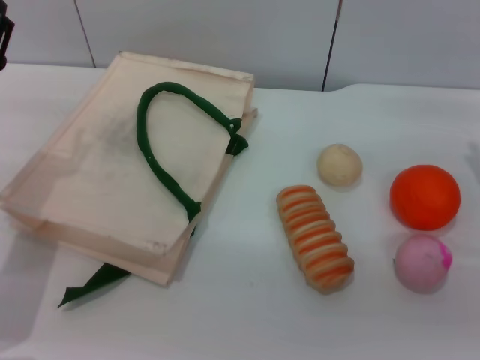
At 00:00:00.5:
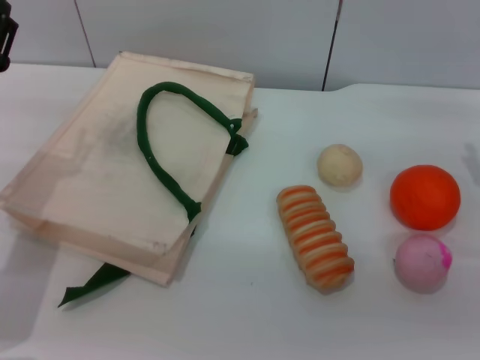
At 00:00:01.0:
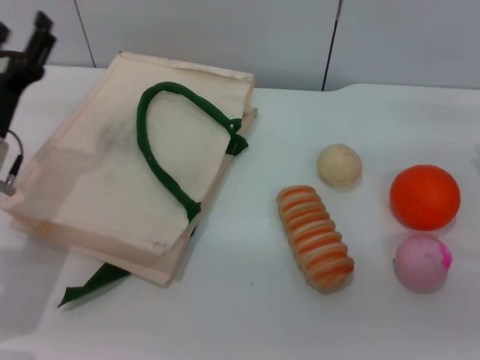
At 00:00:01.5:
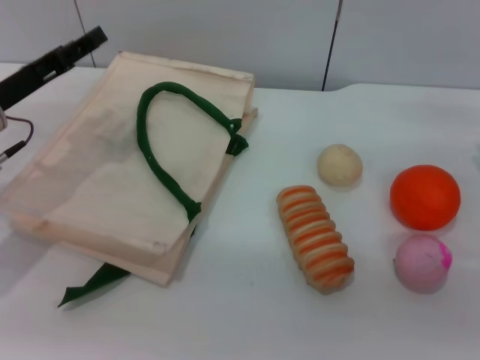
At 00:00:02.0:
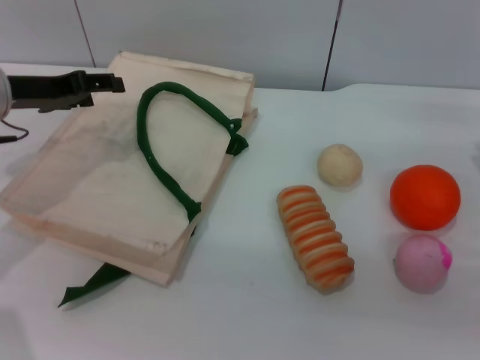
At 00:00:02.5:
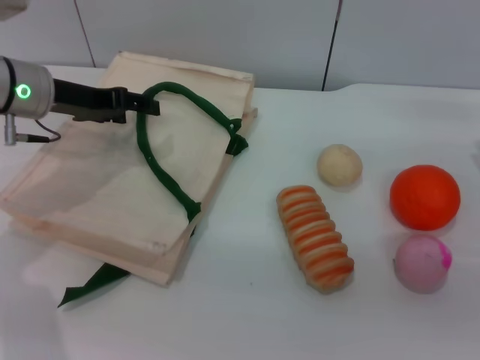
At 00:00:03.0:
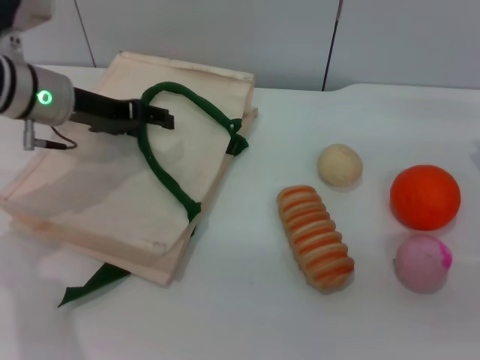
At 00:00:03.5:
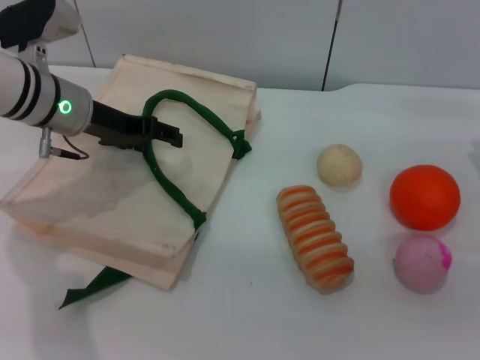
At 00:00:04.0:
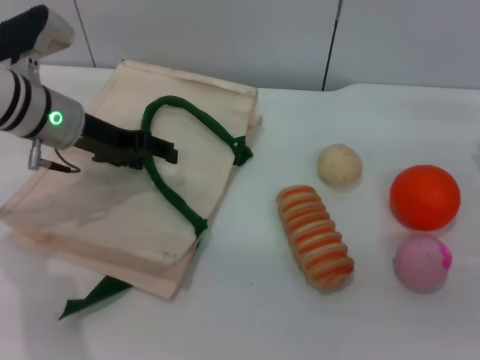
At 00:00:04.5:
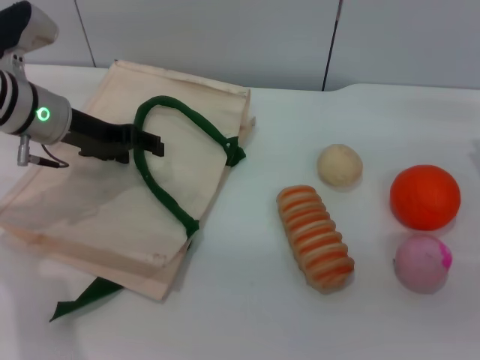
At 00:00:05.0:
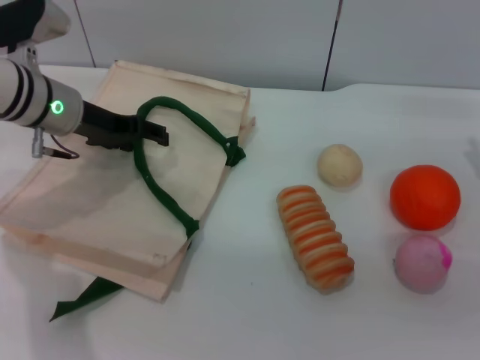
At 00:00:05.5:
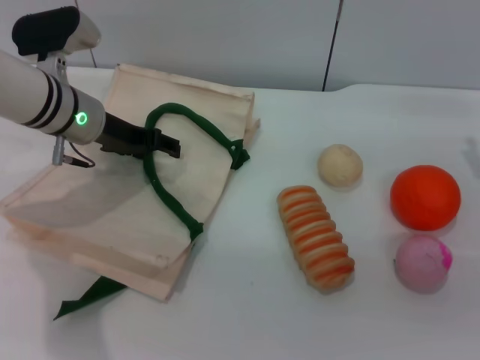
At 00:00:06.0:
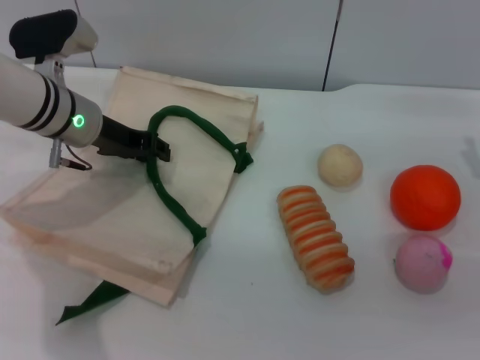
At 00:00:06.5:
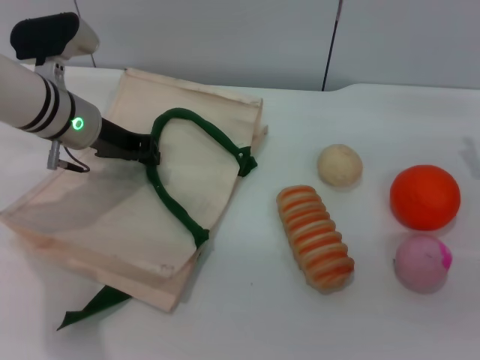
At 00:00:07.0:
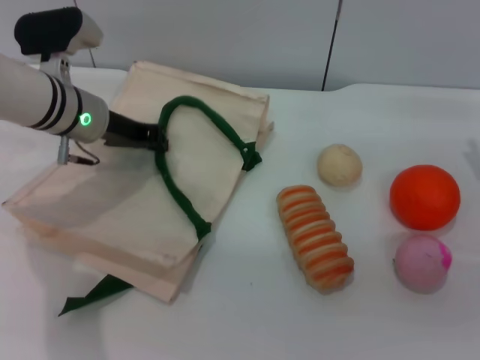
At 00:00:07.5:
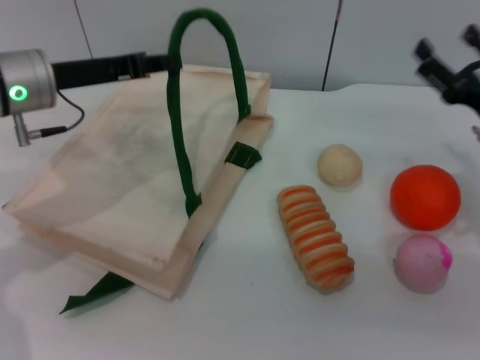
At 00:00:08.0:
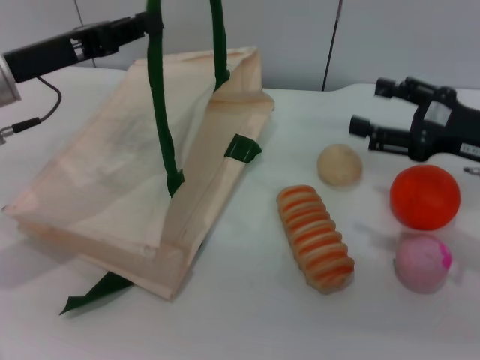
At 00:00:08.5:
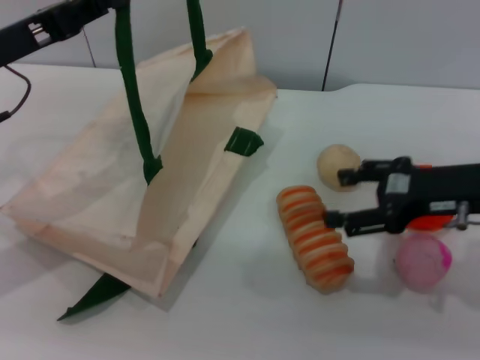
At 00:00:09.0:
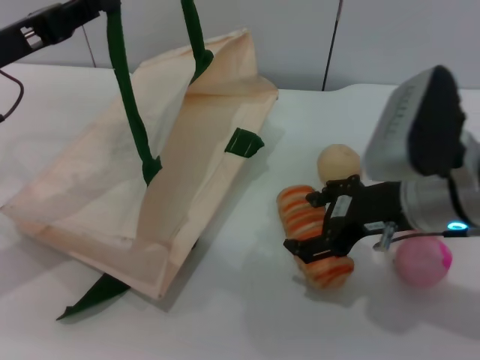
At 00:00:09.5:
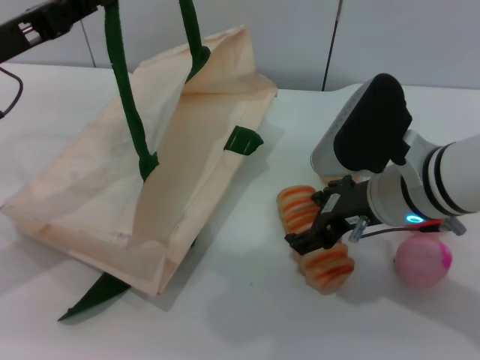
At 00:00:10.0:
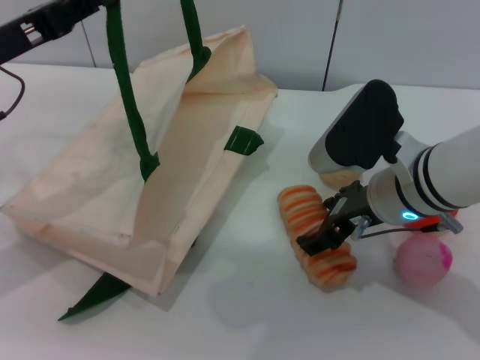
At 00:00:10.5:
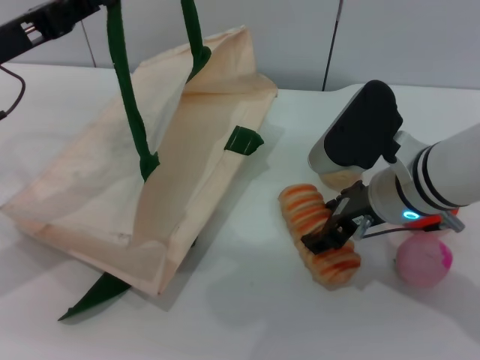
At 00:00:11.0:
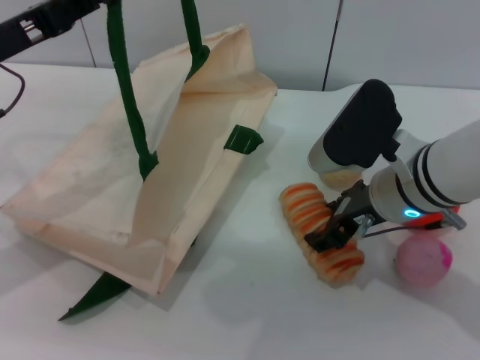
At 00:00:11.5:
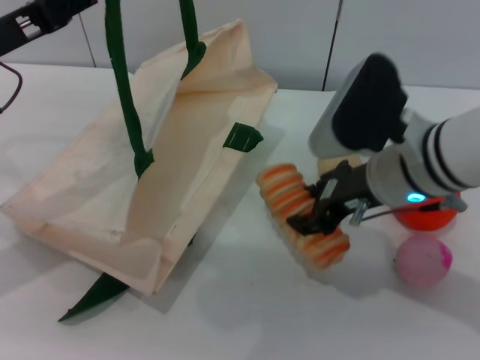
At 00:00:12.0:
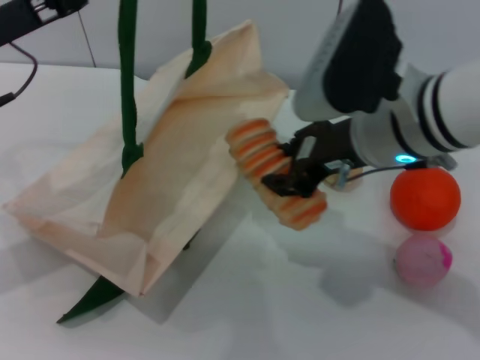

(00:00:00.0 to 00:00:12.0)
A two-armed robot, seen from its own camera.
Task of the whole recording: pick up the bread and egg yolk pastry from the table and place it in the white handbag.
Step, 00:00:00.0 - 00:00:07.0: Lift the woven bag with the left gripper to open it.
Step, 00:00:07.5 - 00:00:11.5: Pick up the bread with the right gripper.
00:00:00.0 - 00:00:02.0: The left gripper travels forward and upward by some 10 cm.
00:00:02.0 - 00:00:04.0: The left gripper moves to the right, some 5 cm.
00:00:04.0 - 00:00:06.0: The grippers stay close to where they were, moving slightly.
00:00:06.0 - 00:00:08.0: The right gripper shifts by roughly 5 cm; the left gripper moves backward and upward, about 10 cm, and closes its fingers.
00:00:08.0 - 00:00:10.0: The right gripper goes roughly 15 cm to the left.
00:00:10.0 - 00:00:12.0: The right gripper heads upward, covering about 10 cm, and closes up.

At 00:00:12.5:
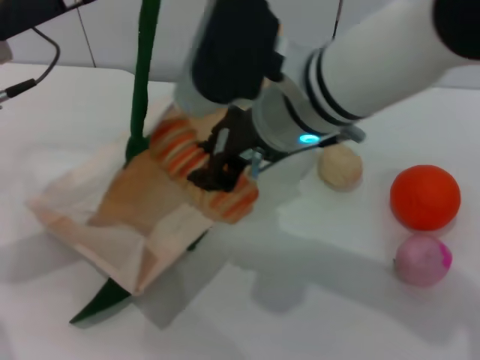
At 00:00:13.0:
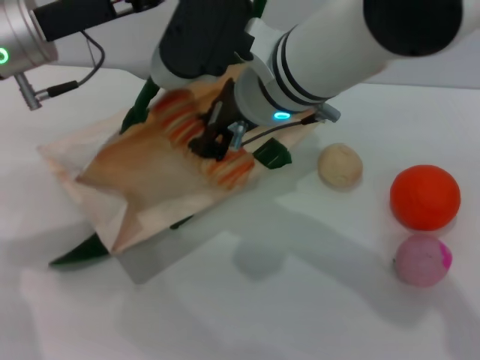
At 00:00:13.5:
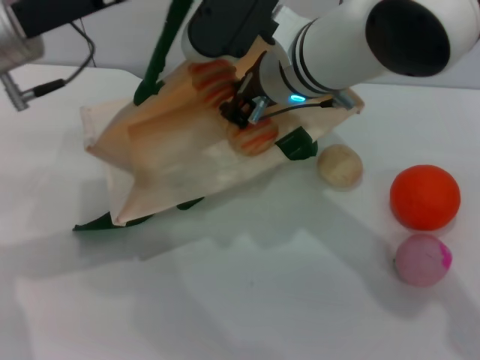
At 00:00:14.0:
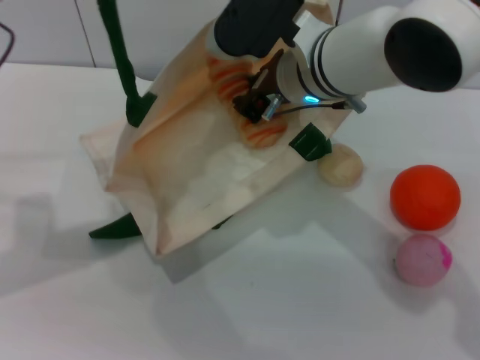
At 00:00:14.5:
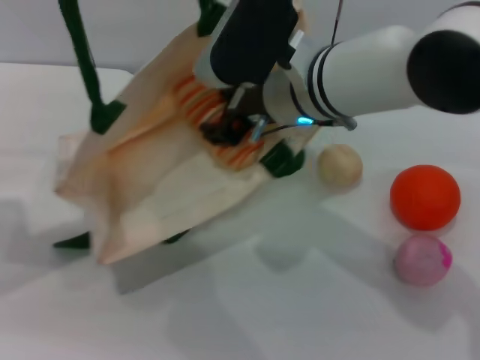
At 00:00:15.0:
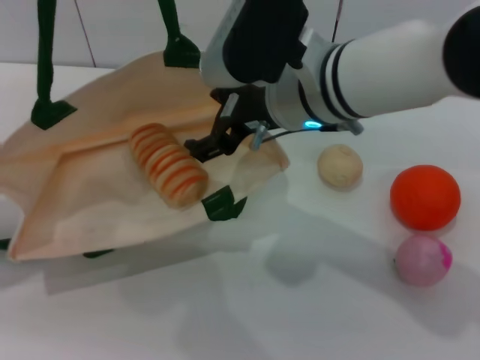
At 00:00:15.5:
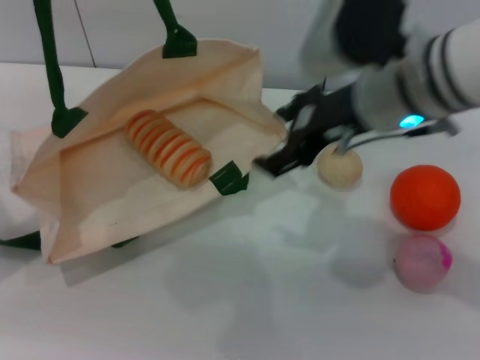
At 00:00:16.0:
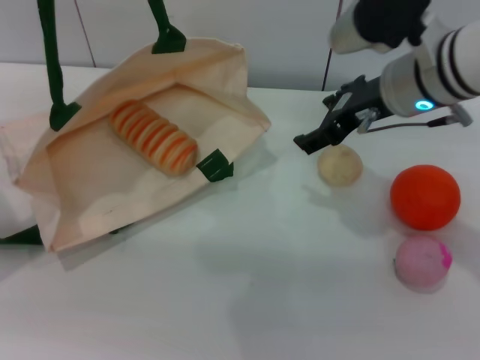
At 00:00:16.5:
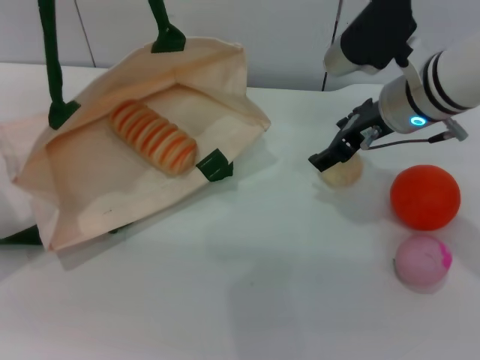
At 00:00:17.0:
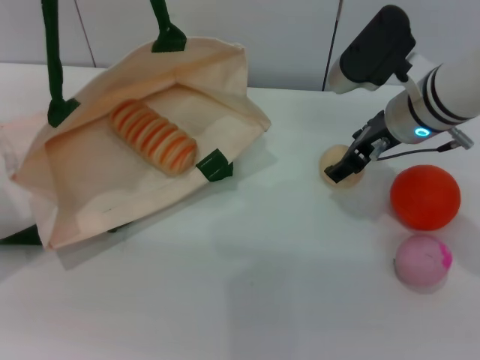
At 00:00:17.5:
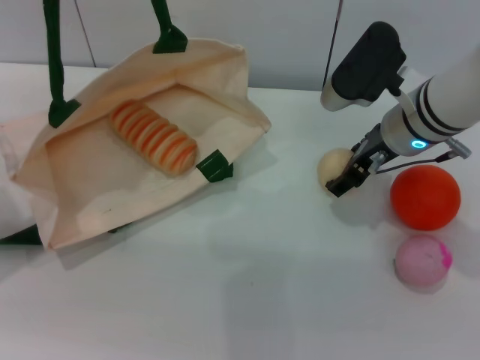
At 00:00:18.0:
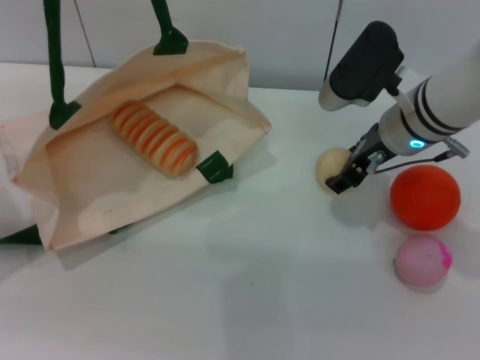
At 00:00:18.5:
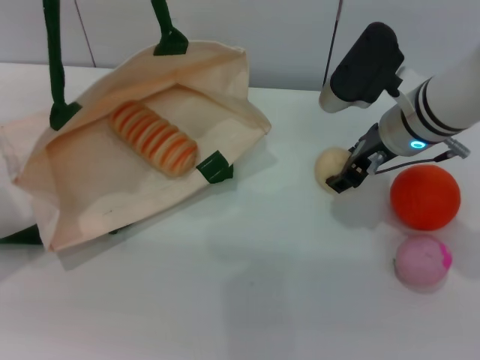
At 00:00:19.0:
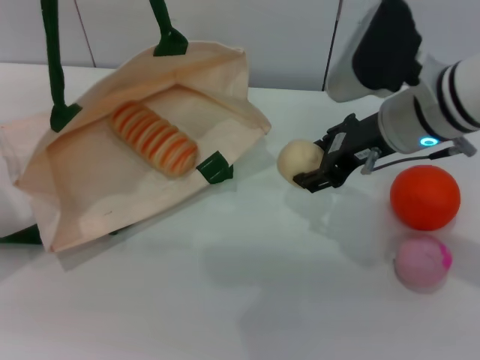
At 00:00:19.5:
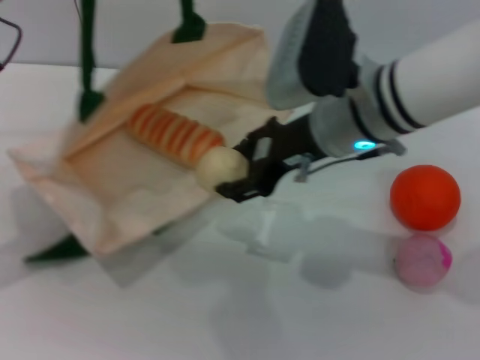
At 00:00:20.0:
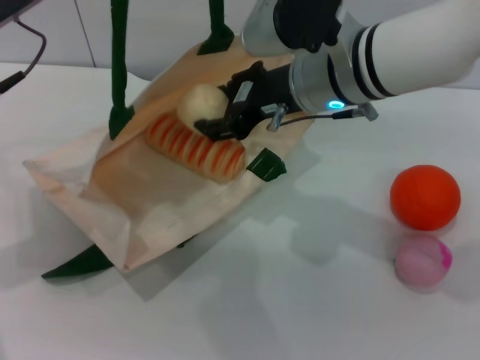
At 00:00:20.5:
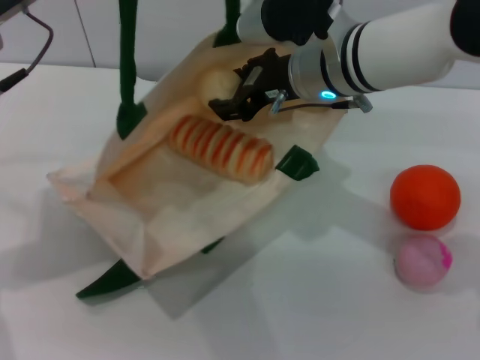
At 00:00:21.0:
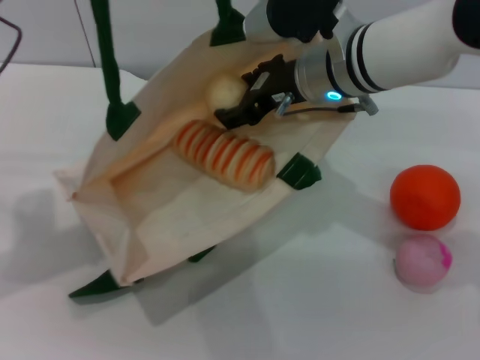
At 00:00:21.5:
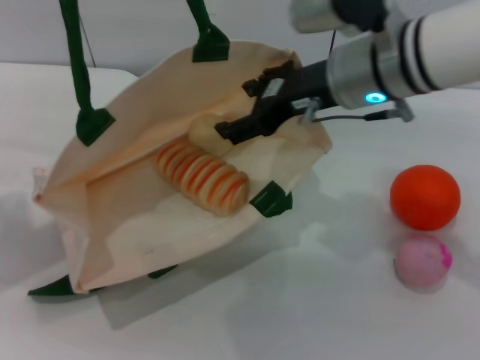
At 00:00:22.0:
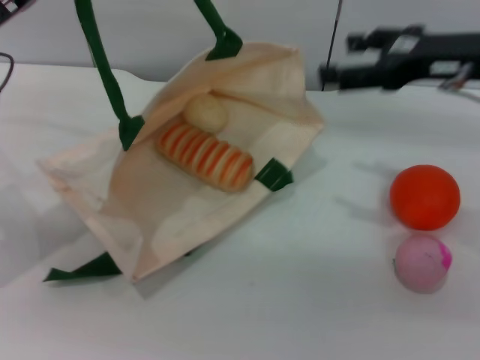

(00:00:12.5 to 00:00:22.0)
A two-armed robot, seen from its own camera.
Task of the whole recording: pick up the bread and egg yolk pastry from the table and place it in the white handbag.
Step, 00:00:12.5 - 00:00:15.5: Place the bread into the woven bag with the right gripper.
Step, 00:00:16.0 - 00:00:19.0: Pick up the egg yolk pastry with the right gripper.
Step, 00:00:19.5 - 00:00:21.5: Place the egg yolk pastry into the woven bag with the right gripper.
00:00:12.5 - 00:00:14.5: The left gripper moves approximately 5 cm, while the right gripper ends up roughly 5 cm from where it was.
00:00:14.5 - 00:00:16.5: The right gripper heads to the right, covering some 10 cm, and opens.
00:00:16.5 - 00:00:18.0: The grippers make only small movements.
00:00:18.0 - 00:00:20.0: The right gripper goes roughly 10 cm to the left and upward.
00:00:20.0 - 00:00:22.0: The right gripper goes some 15 cm to the right, and opens its fingers.

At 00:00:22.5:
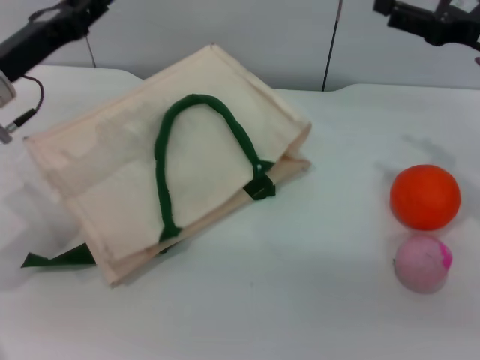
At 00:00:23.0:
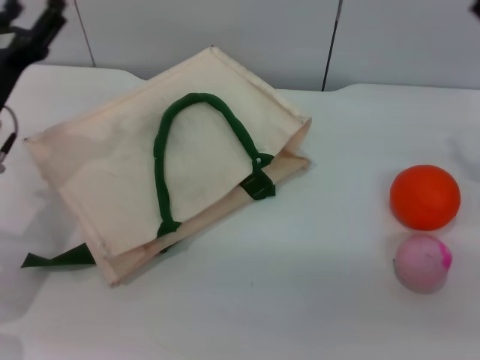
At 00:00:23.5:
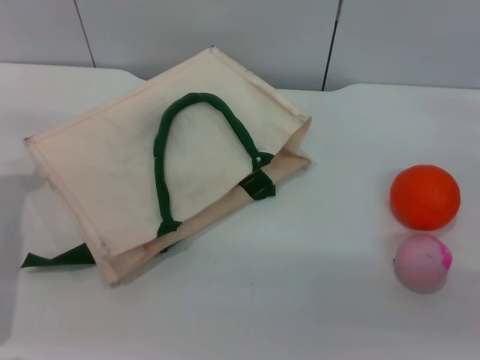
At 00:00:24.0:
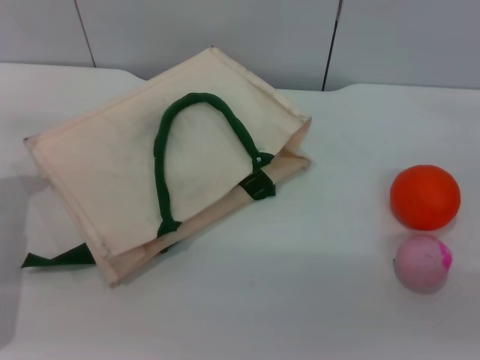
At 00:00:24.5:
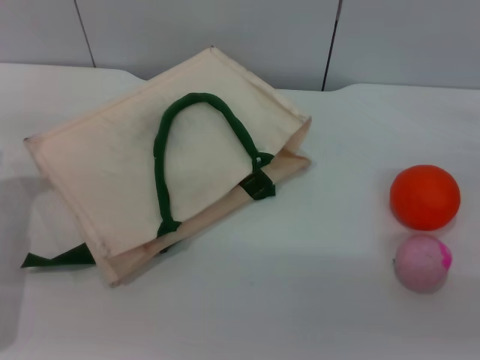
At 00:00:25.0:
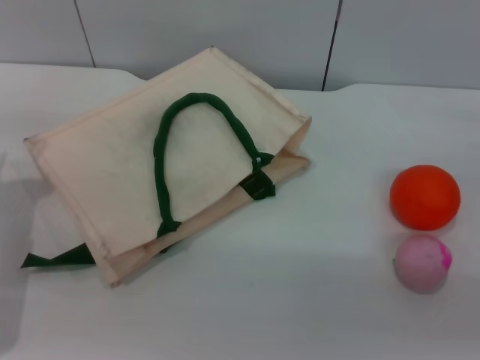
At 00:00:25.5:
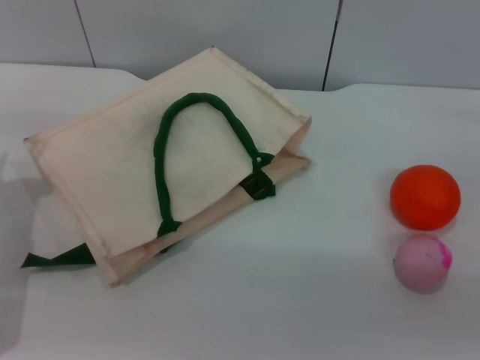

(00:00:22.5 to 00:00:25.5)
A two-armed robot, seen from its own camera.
Task of the whole recording: pick up the bread and egg yolk pastry from the table and place it in the white handbag.
00:00:22.5 - 00:00:24.0: The left gripper heads downward and backward, covering some 10 cm, and opens its fingers, while the right gripper heads downward, to the right and backward, covering some 15 cm.
00:00:24.0 - 00:00:25.5: Both grippers stay about where they are.
